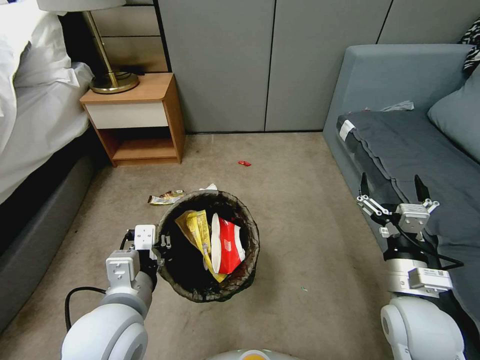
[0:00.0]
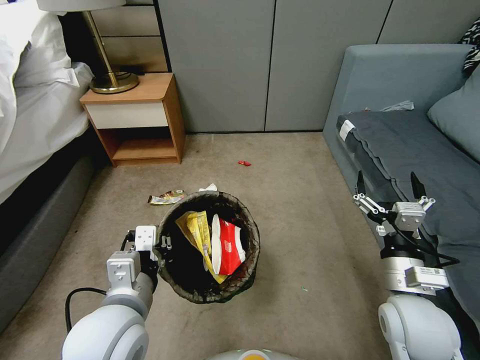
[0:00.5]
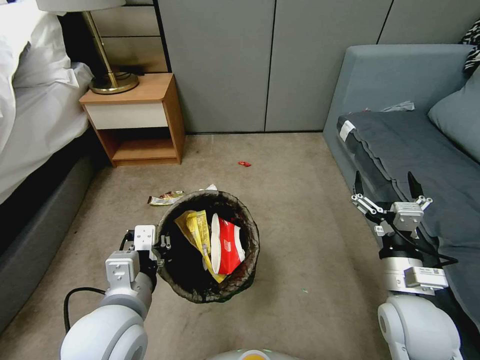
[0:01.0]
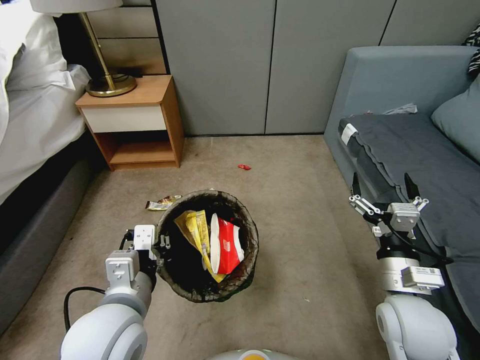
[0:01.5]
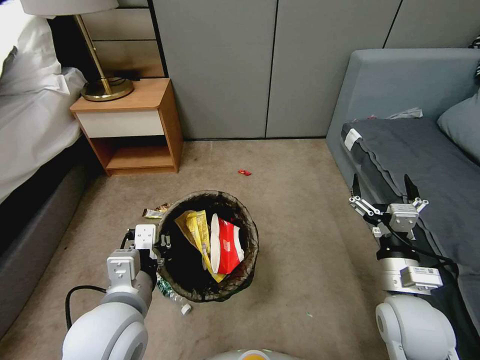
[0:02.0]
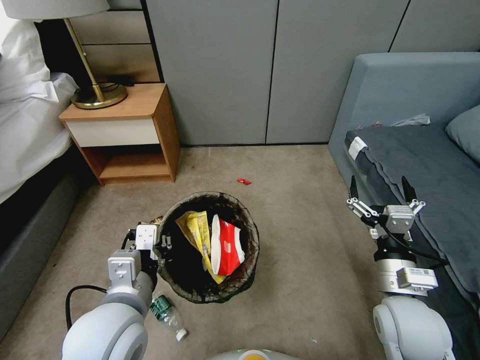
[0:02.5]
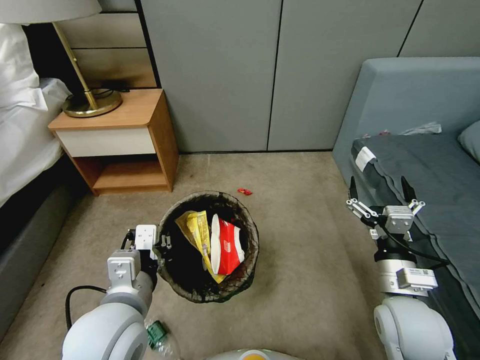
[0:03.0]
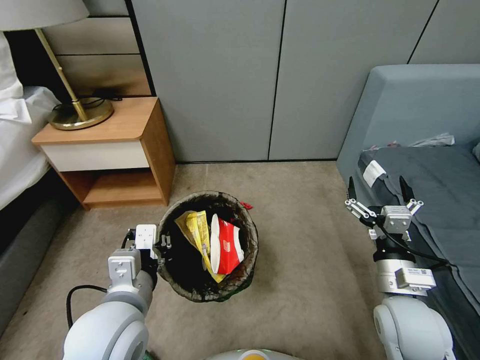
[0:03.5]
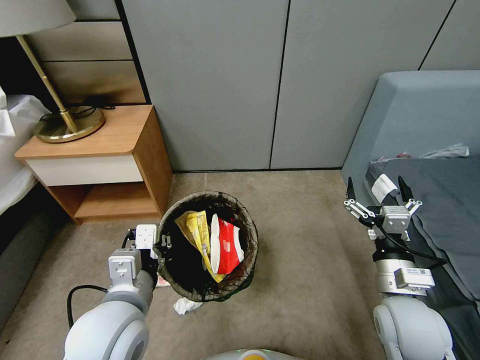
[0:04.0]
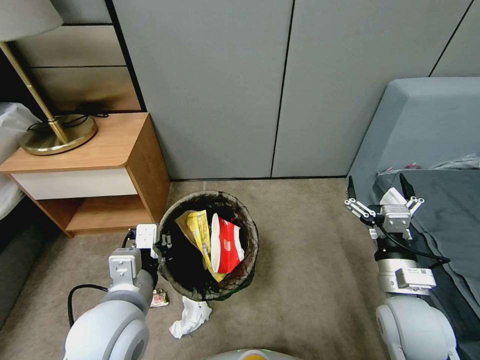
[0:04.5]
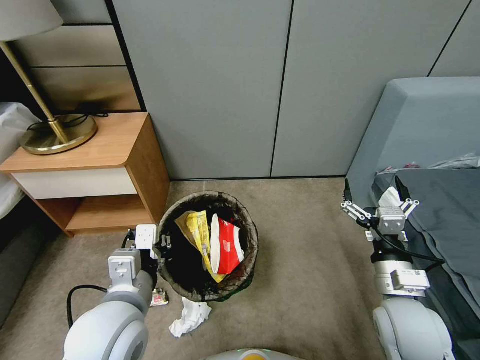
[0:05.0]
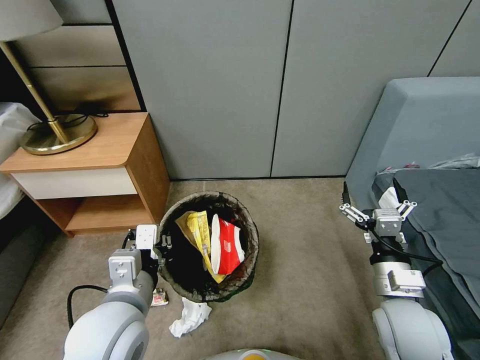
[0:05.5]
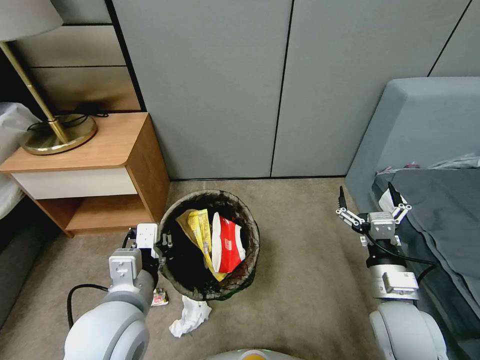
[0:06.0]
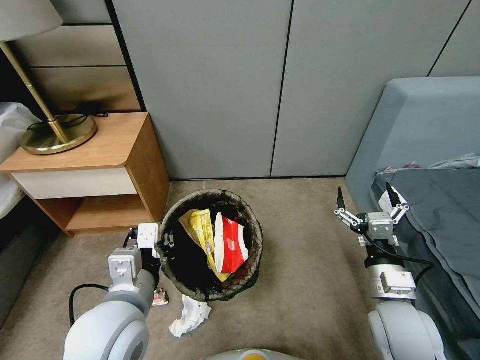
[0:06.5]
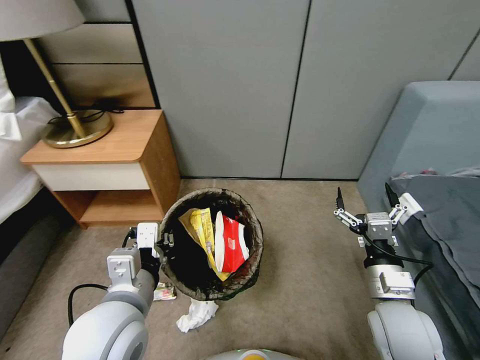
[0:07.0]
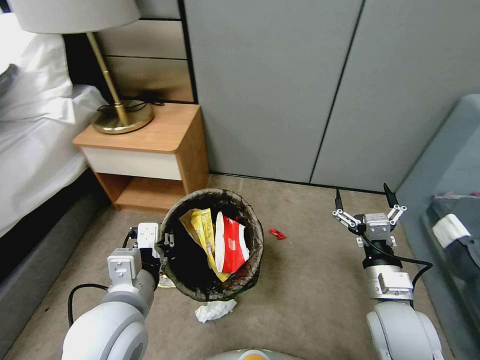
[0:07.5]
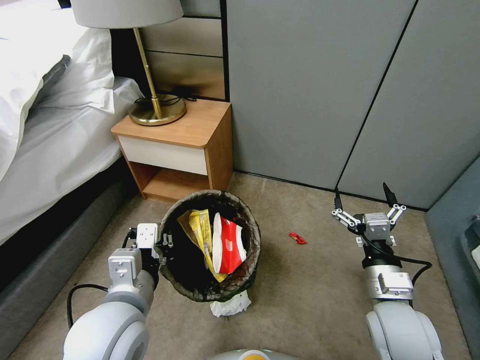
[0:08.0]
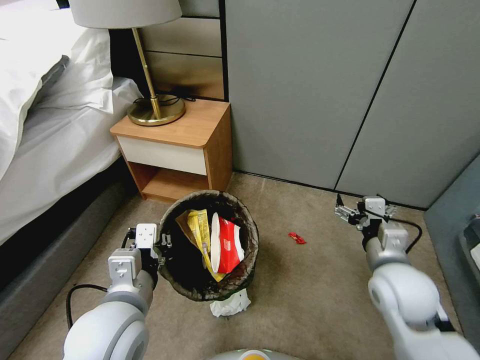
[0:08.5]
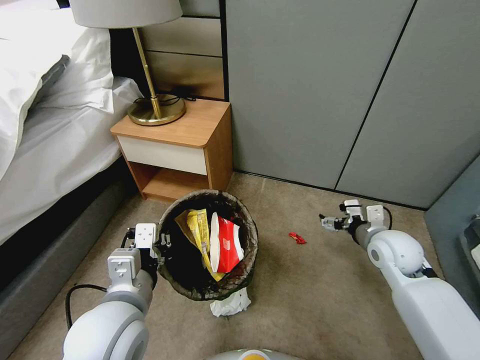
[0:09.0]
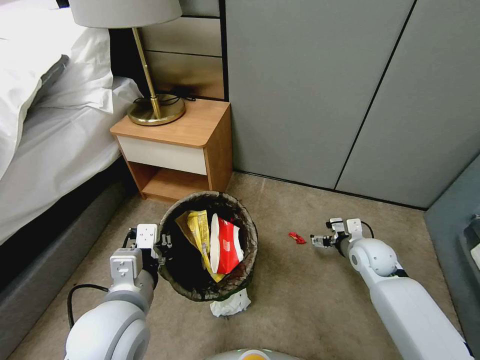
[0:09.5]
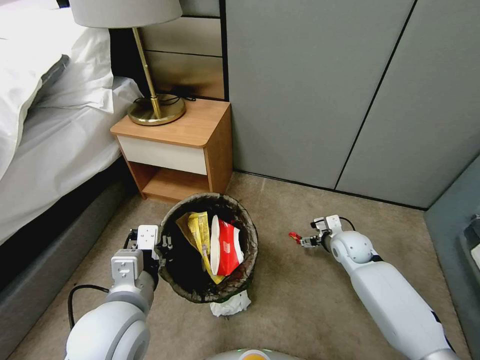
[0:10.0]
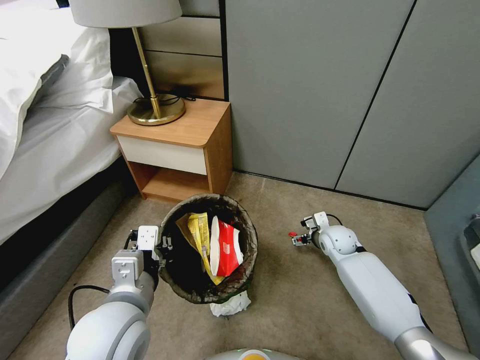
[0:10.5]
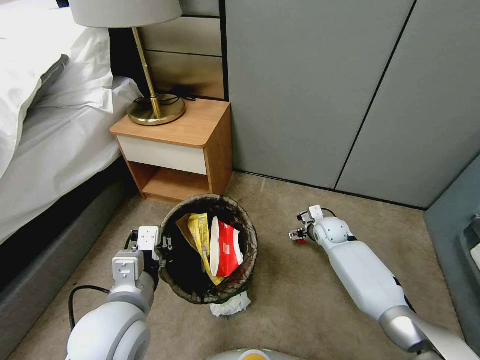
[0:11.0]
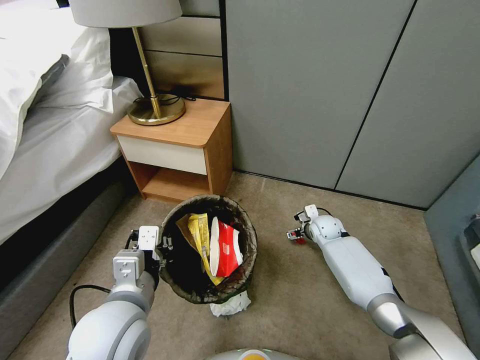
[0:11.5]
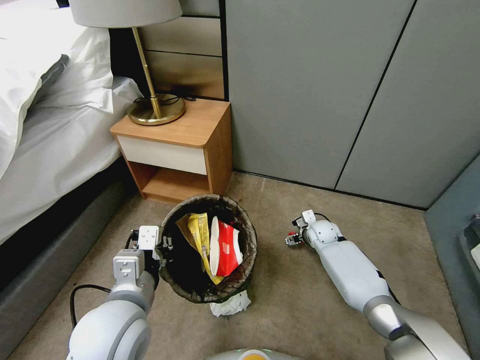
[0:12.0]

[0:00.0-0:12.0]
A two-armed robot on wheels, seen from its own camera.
Task of the whole recording: Pick up the trash bin, then pick up the garbage from the floor and place it into the trash bin.
0:00.0 to 0:02.0: Neither gripper changes place.
0:08.0 to 0:10.0: The right gripper shifts roughly 25 cm forward and downward.
0:10.0 to 0:12.0: The right gripper travels forward and downward by roughly 10 cm.

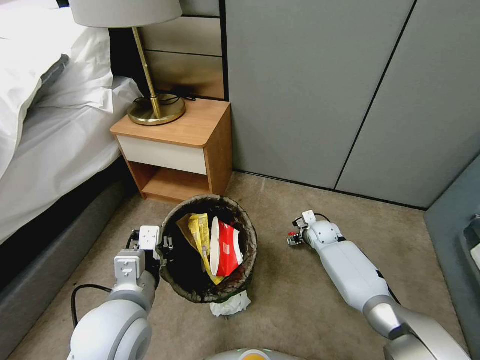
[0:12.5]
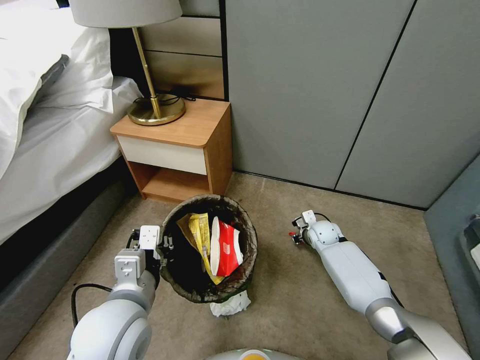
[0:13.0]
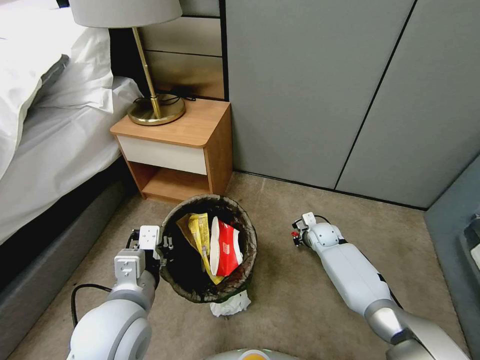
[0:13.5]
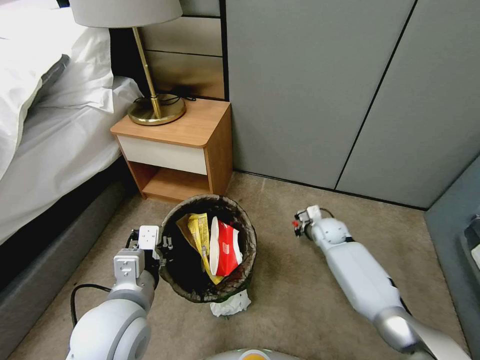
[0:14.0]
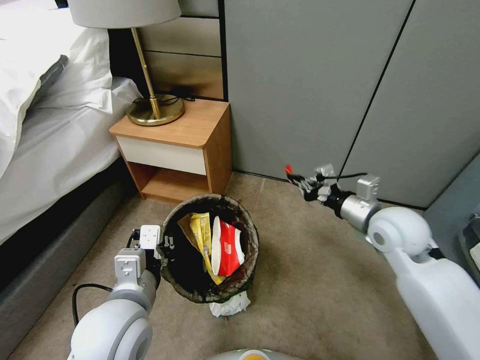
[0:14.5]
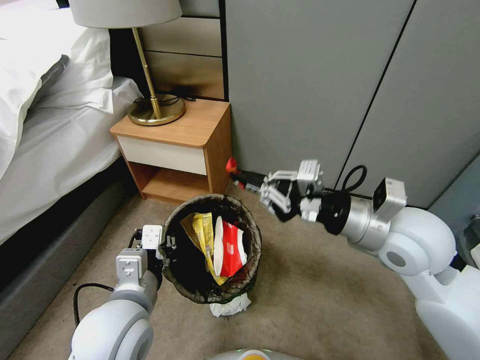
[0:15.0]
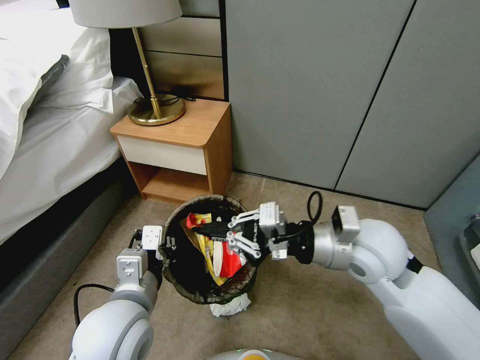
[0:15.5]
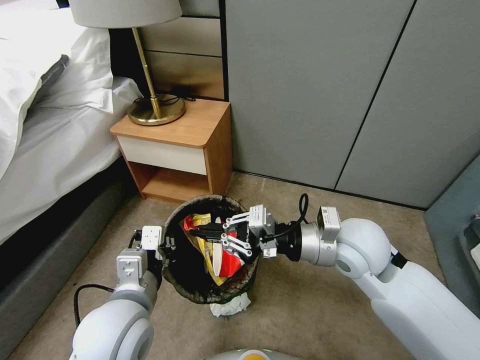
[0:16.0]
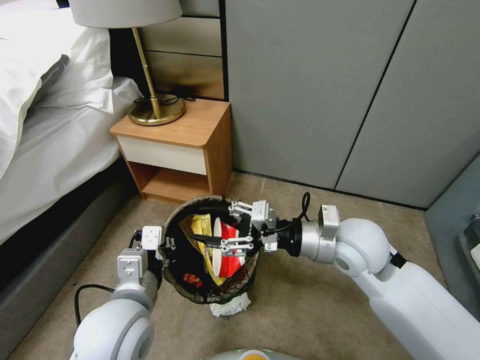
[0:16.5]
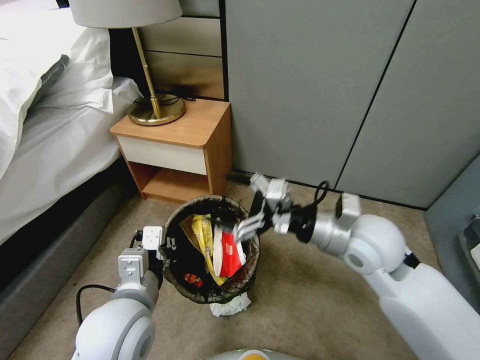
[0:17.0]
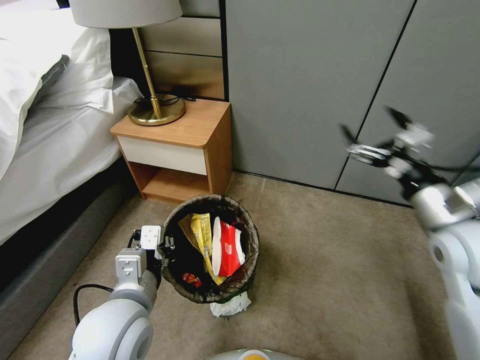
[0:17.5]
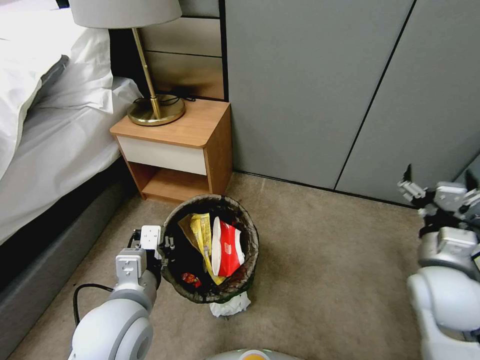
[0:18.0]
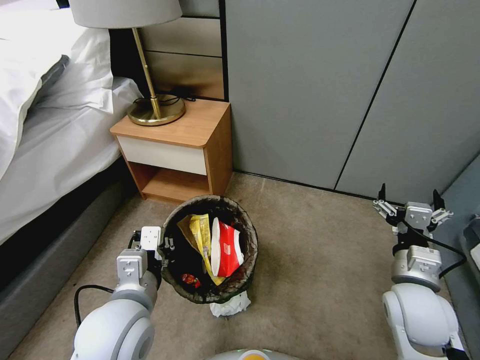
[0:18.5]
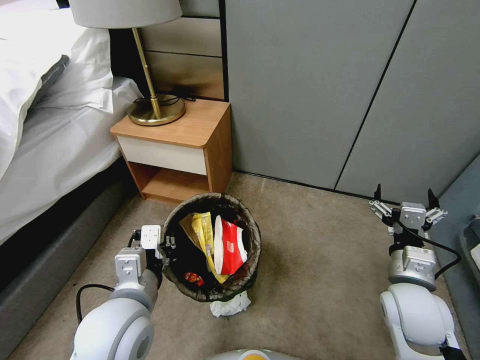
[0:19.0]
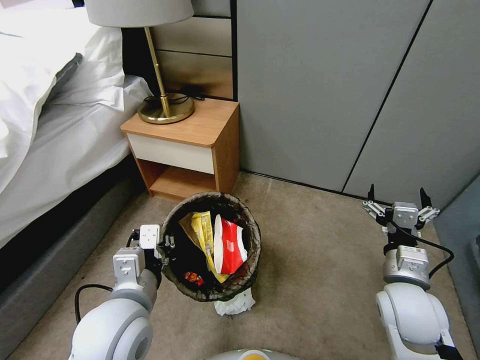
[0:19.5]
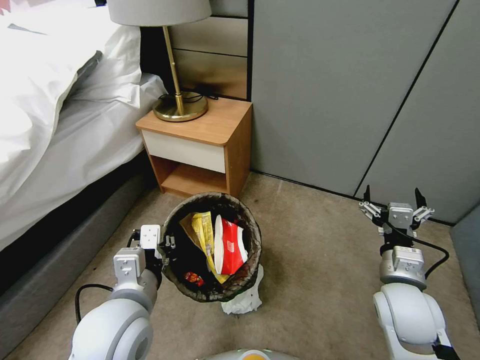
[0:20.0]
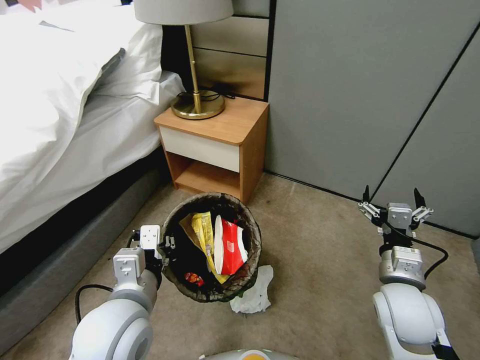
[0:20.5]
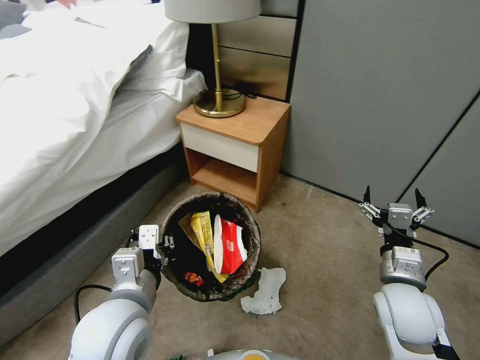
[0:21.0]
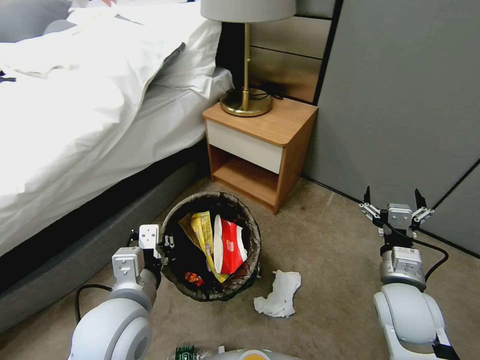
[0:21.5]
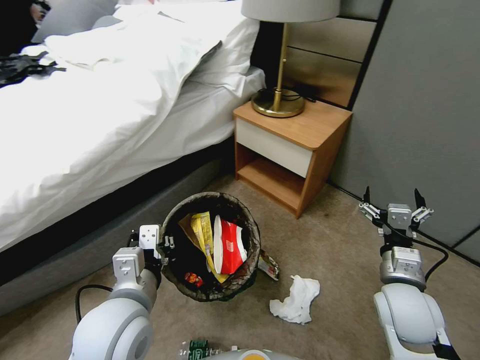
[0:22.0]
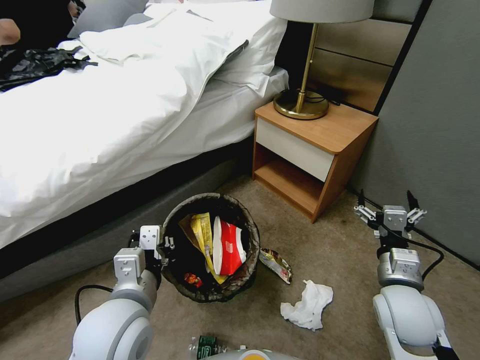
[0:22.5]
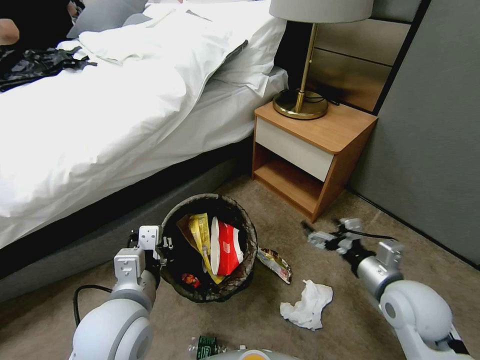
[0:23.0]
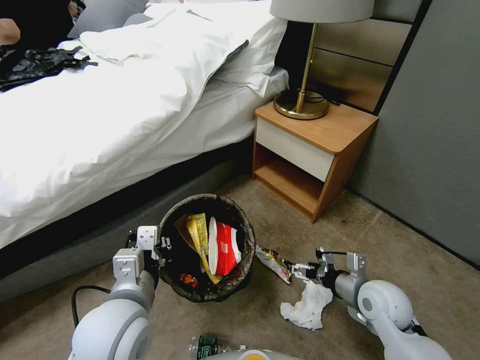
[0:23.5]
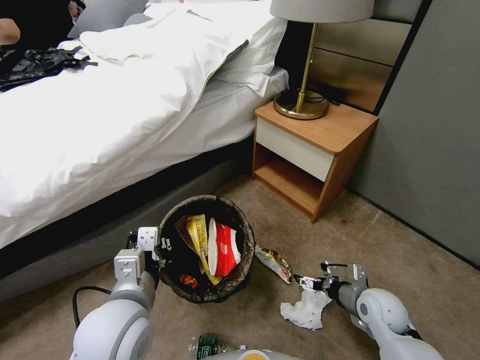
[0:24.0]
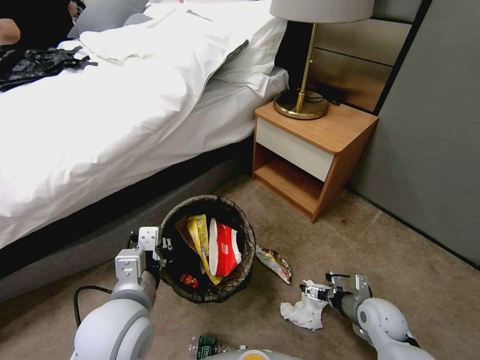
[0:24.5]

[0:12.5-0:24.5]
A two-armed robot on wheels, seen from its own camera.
Task of the whole recording: Pick up the trash bin, then pick up the garbage from the floor and place it into the trash bin.
0:12.5 to 0:14.5: The right gripper shifts some 30 cm upward and backward, and closes its fingers.
0:14.5 to 0:16.5: The right gripper is displaced to the left by approximately 10 cm, and opens up.
0:16.5 to 0:18.5: The right gripper moves to the right, downward and backward, about 15 cm, and opens.
0:22.5 to 0:24.5: The right gripper heads downward, covering some 15 cm.

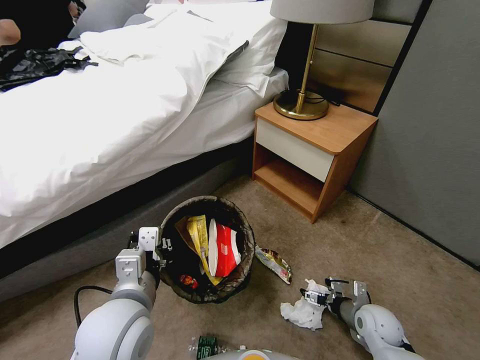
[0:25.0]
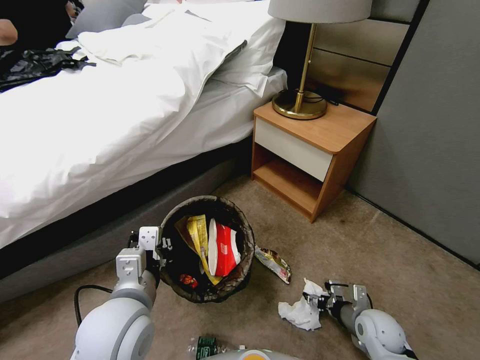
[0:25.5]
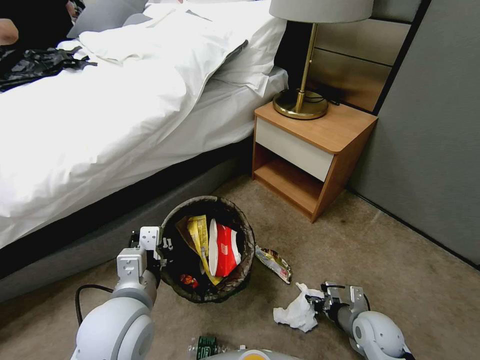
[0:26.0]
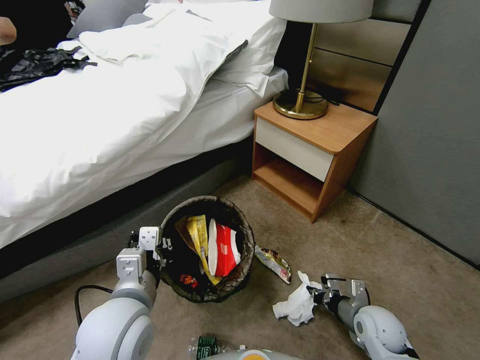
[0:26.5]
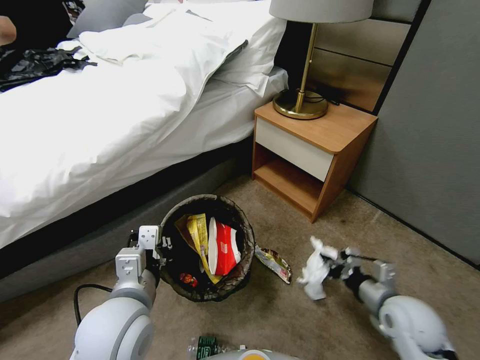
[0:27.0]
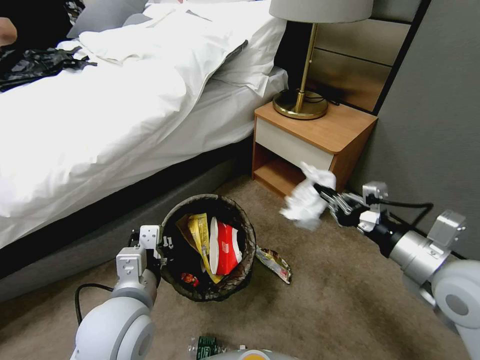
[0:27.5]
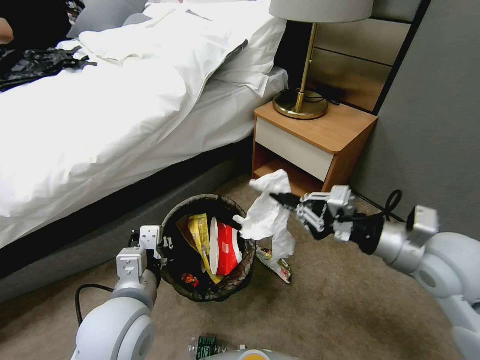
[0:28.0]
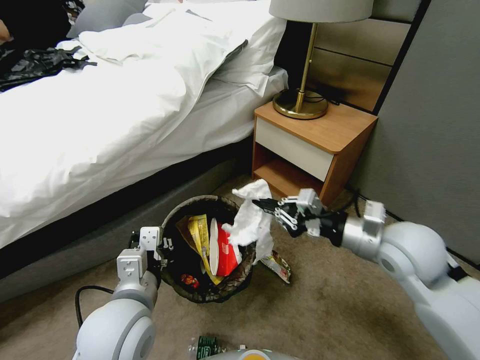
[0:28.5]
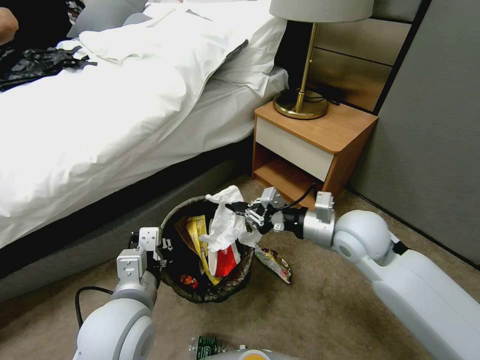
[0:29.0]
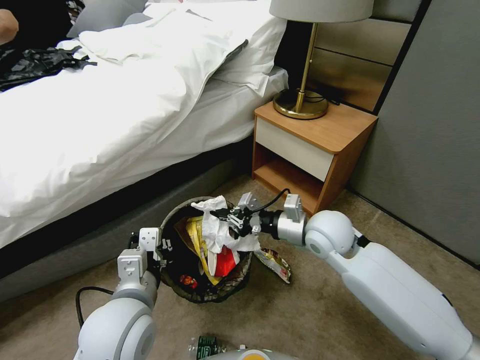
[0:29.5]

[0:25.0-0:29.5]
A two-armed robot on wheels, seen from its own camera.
Task of the whole recording: Pick up the trash bin, then pick up the garbage from the floor and place it into the trash bin.
0:25.0 to 0:27.0: The right gripper is displaced upward by about 15 cm, and closes its fingers.
0:27.0 to 0:29.5: The right gripper shifts about 25 cm to the left, forward and upward.
